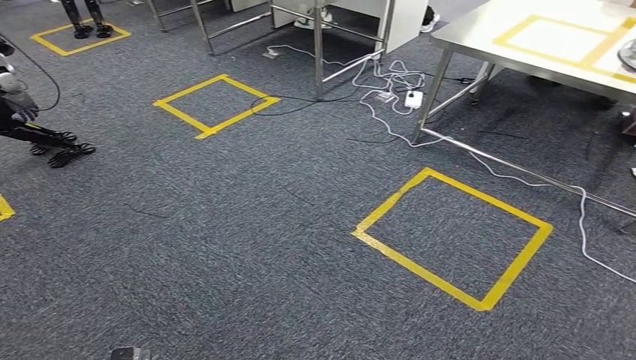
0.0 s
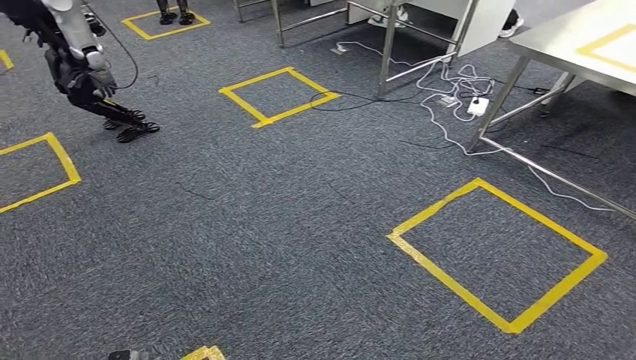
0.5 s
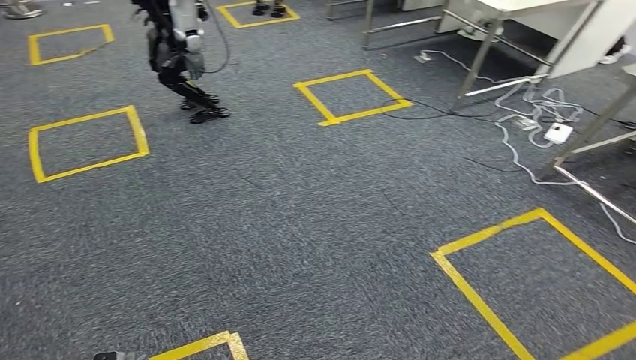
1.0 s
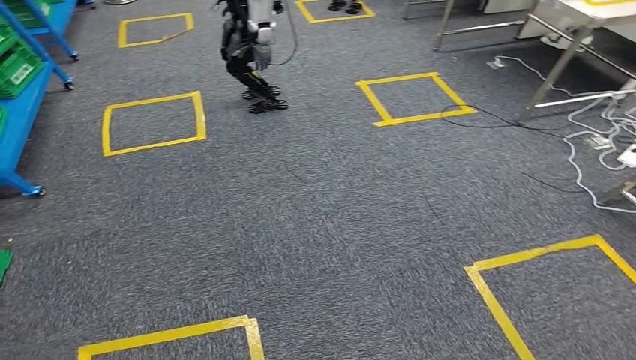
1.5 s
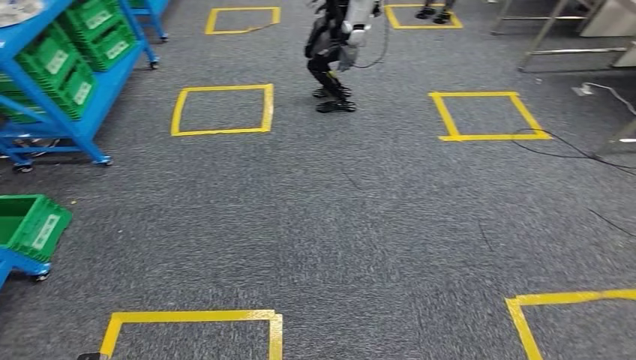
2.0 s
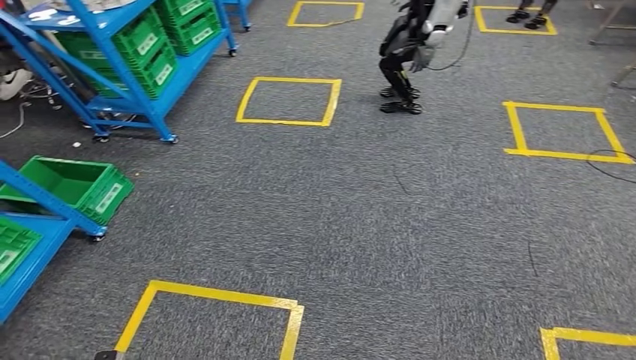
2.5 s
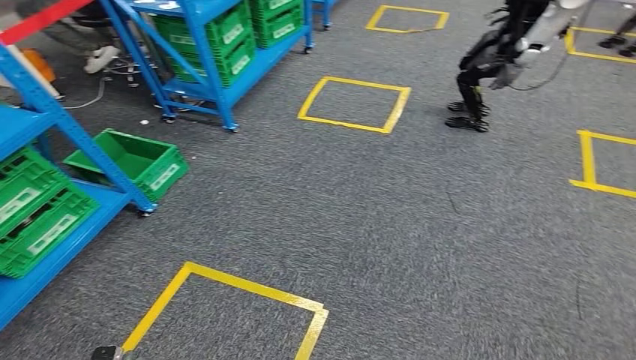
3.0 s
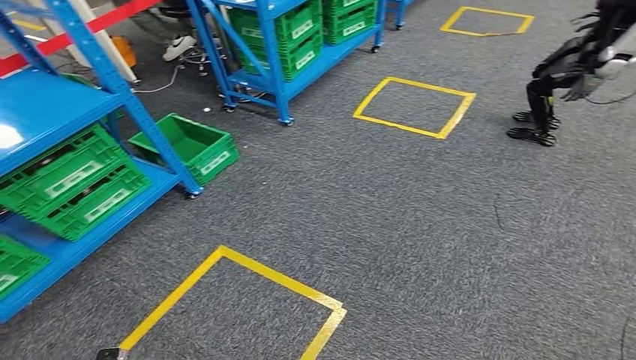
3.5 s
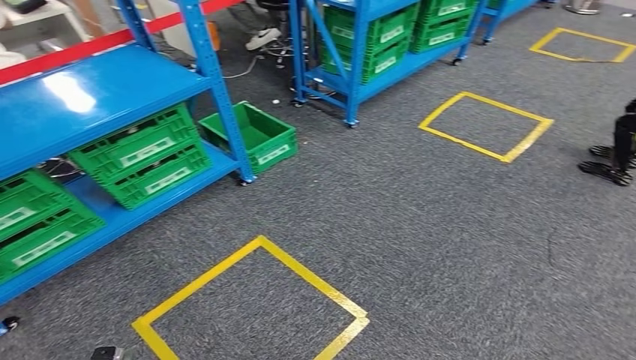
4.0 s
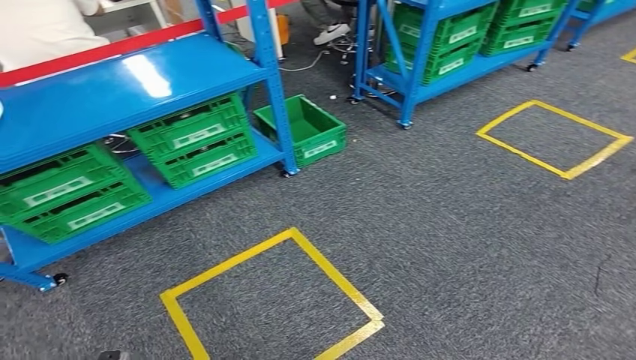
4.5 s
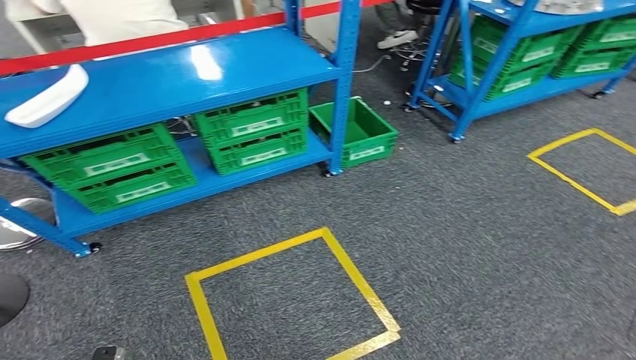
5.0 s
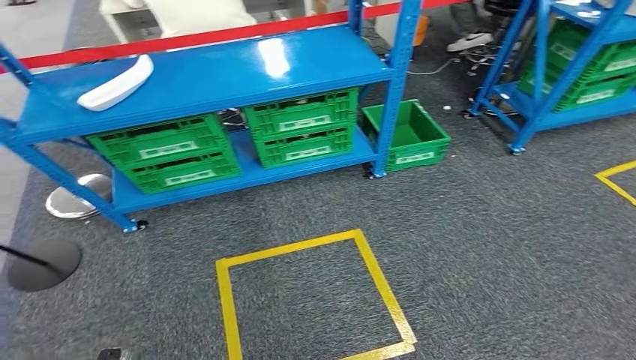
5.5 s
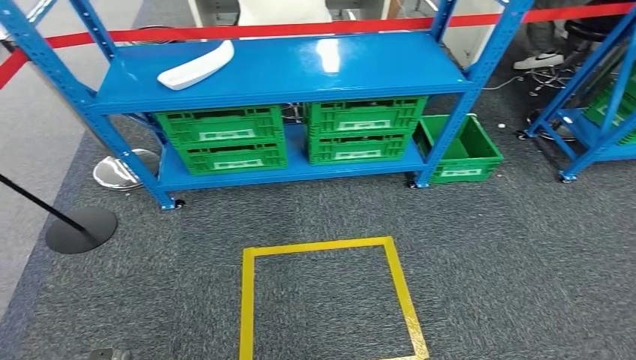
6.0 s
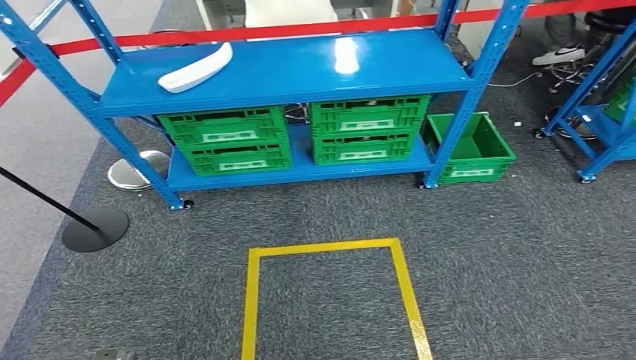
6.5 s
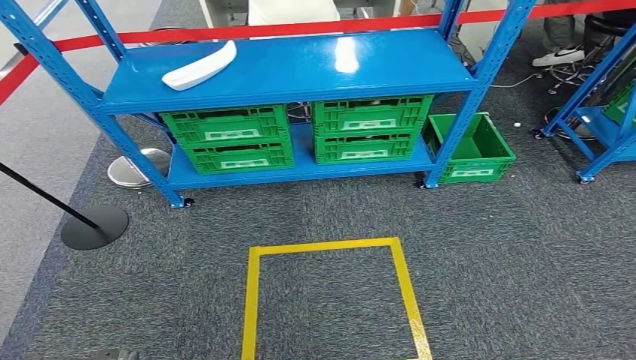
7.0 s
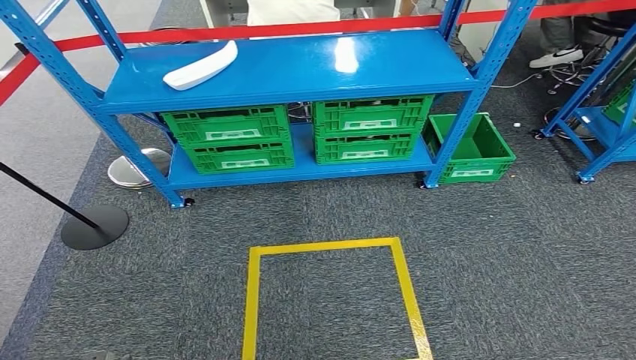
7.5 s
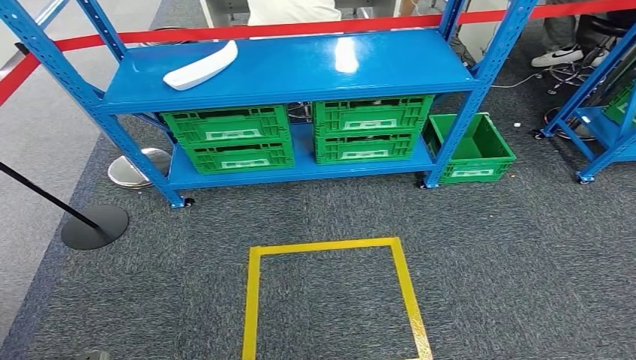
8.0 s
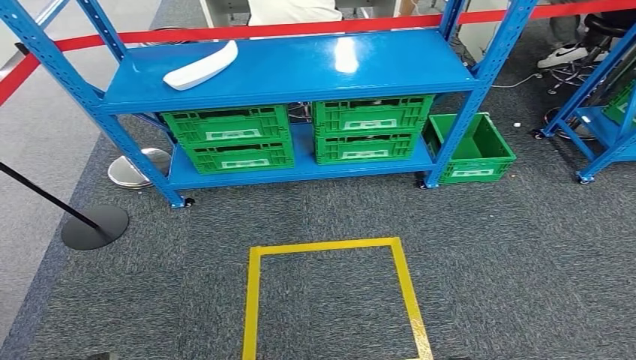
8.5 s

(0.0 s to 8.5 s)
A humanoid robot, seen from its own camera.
Step, 0.0 s - 8.5 s: Move to the initial position of the workbench.
